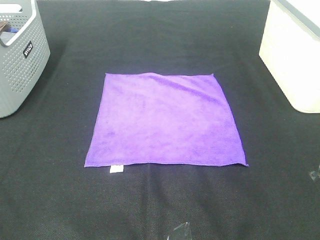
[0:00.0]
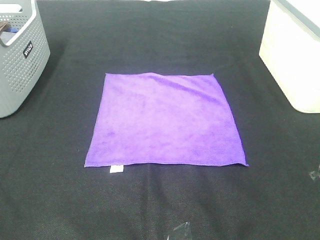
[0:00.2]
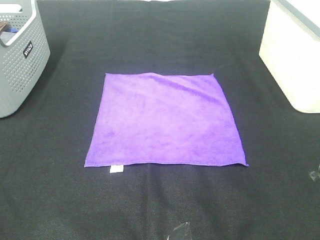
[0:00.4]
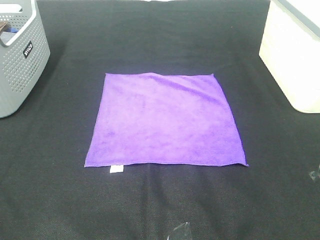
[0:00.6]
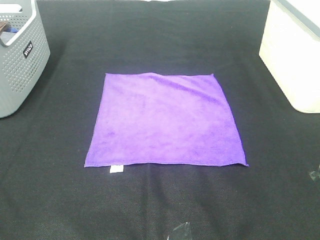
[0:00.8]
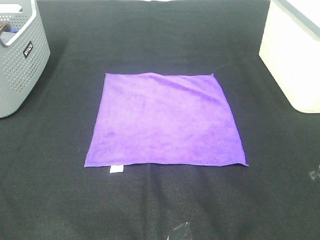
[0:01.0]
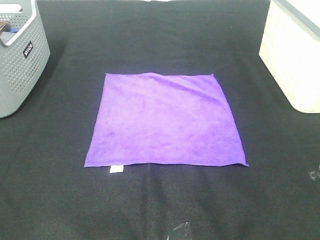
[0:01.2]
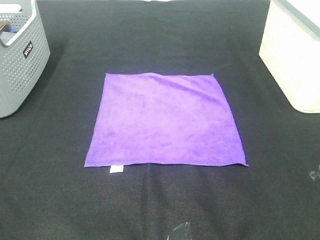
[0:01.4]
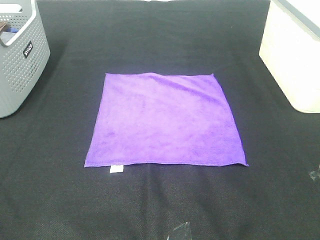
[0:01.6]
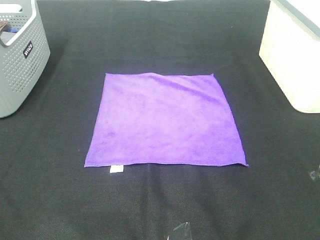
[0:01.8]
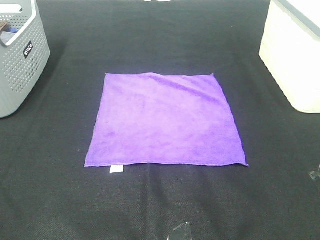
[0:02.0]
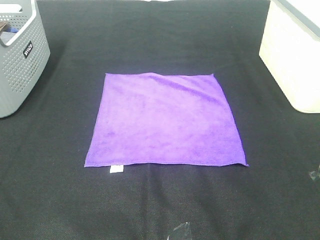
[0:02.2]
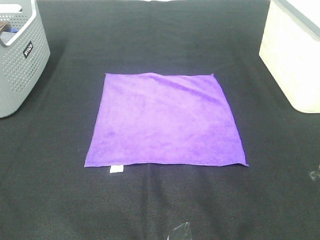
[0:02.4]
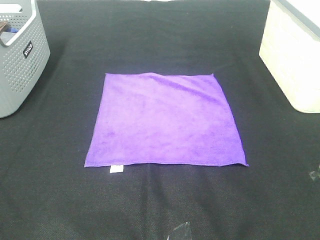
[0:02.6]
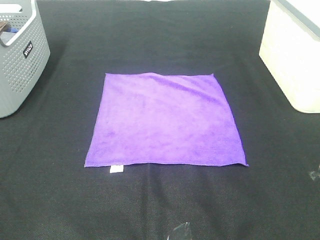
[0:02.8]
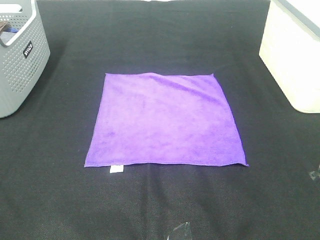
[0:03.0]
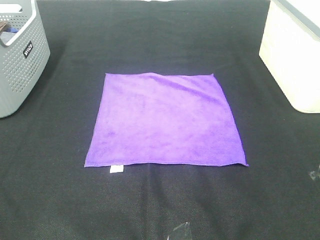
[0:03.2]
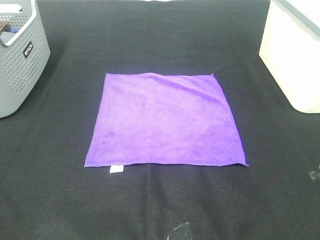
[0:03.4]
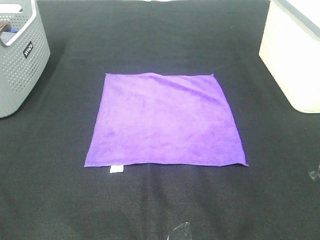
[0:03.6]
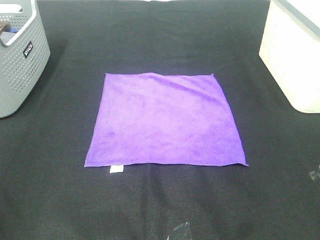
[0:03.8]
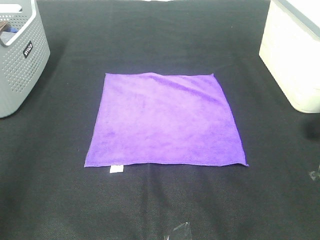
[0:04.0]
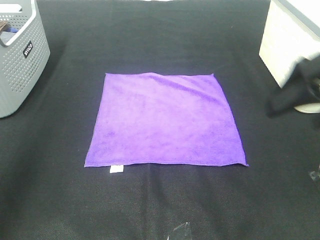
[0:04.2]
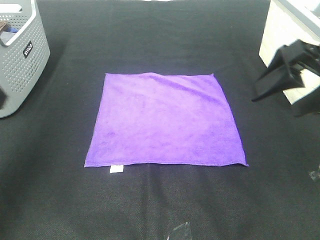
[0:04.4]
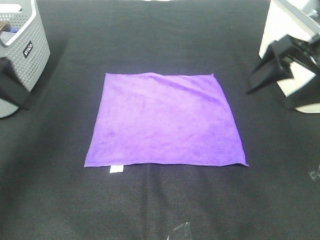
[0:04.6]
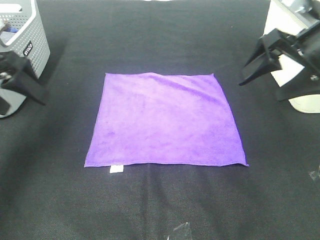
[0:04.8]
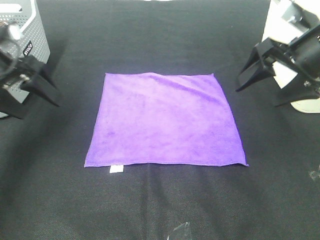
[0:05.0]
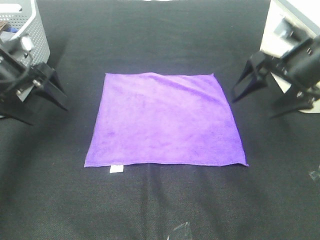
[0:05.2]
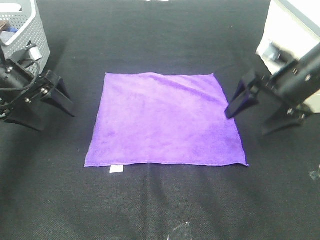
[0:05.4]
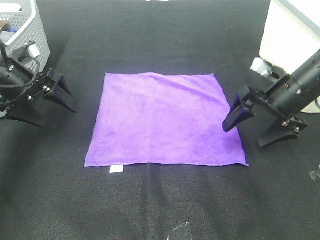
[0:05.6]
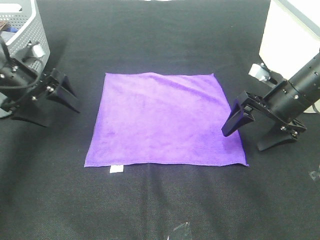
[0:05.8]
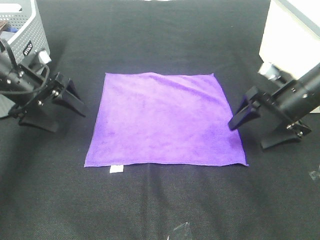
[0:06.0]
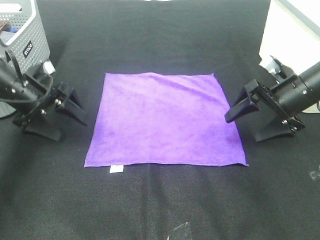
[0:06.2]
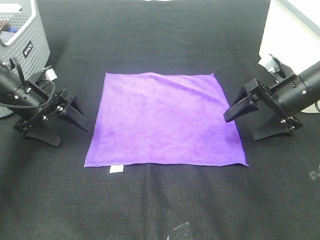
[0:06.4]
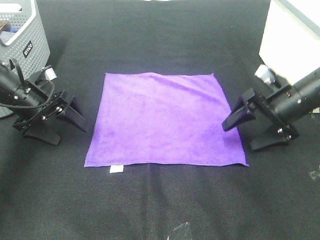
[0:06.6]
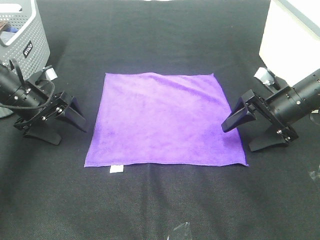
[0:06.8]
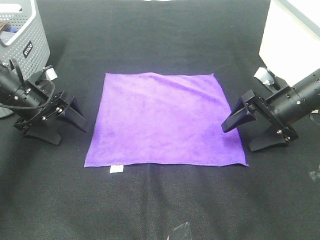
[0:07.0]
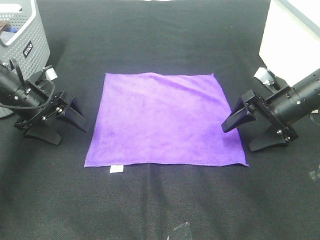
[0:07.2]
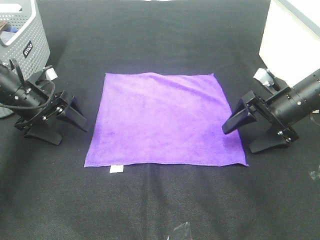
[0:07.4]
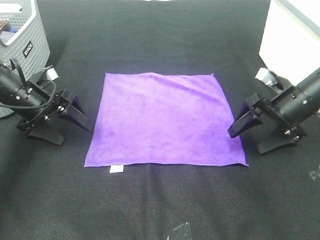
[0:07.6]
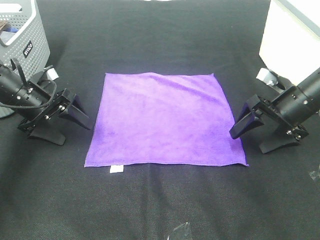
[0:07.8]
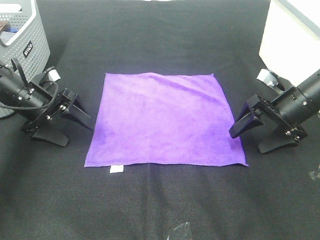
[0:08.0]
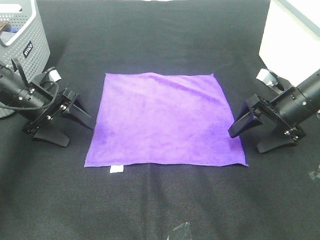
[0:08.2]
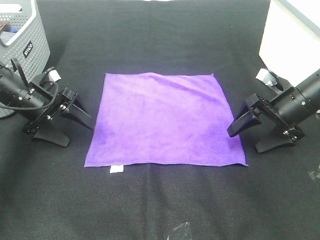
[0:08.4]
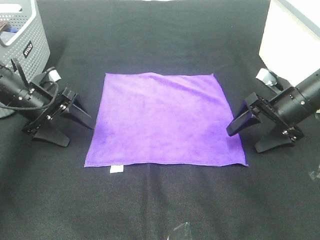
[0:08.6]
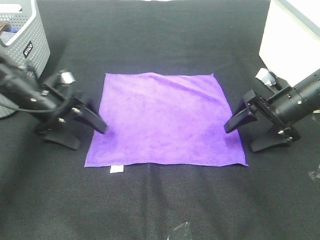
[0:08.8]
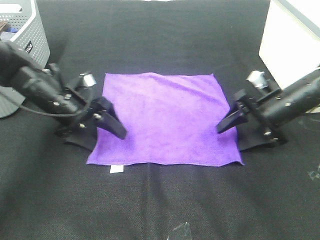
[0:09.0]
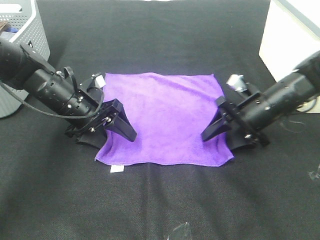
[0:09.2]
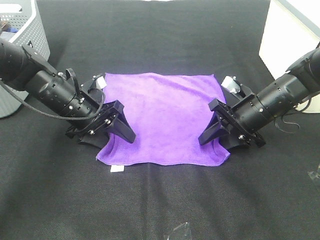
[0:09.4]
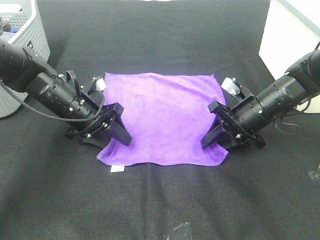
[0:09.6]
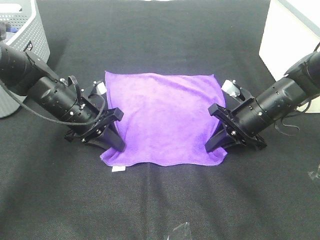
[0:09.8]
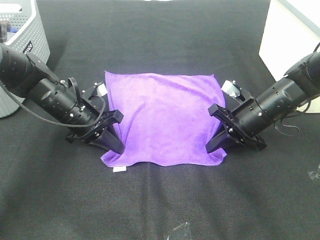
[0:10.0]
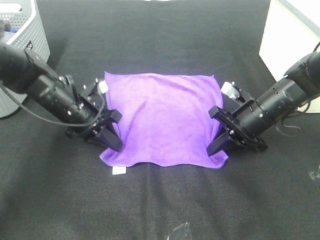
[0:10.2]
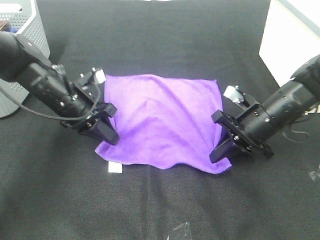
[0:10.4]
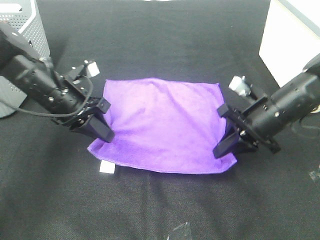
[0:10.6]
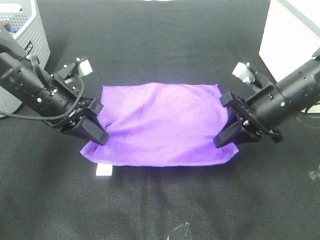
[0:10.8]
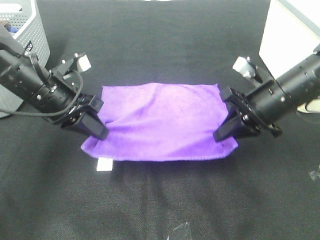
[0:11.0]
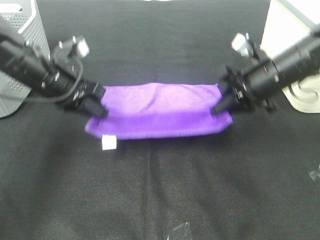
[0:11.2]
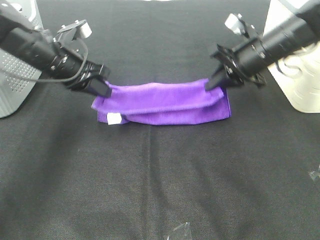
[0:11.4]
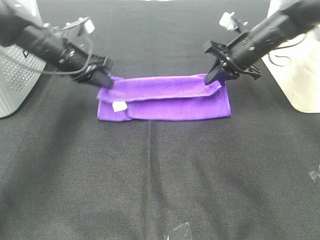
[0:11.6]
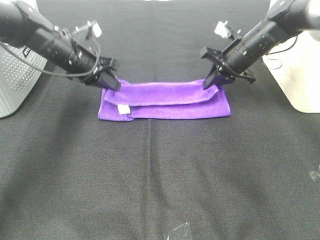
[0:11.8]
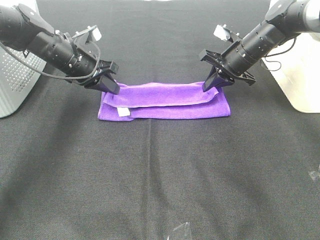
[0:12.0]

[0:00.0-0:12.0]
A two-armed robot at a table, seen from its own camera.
Task of the whole recording: Fold towels.
Step, 0:00.0 to 0:10.0: Left hand: grab the bottom left corner of purple towel.
Step, 0:00.0 to 0:10.0: Right hand: grab the bottom right corner of purple towel.
0:00.0 to 0:03.0: The two grippers keep their place.
0:03.0 to 0:04.4: Both grippers travel together forward, roughly 25 cm.
0:04.4 to 0:06.0: The grippers both shift downward and forward by approximately 20 cm.
0:06.0 to 0:07.6: The grippers make only small movements.
0:07.6 to 0:09.0: The left gripper is displaced to the right by about 10 cm.
0:09.0 to 0:10.4: The right gripper ends up approximately 5 cm from where it was, and closes its fingers, while the left gripper closes its fingers.
0:10.4 to 0:12.0: The left gripper goes some 10 cm forward, while the right gripper moves forward, some 15 cm.

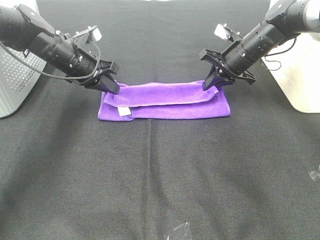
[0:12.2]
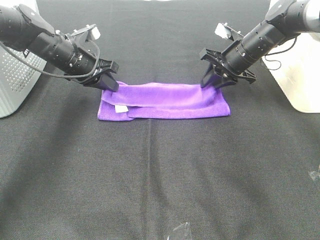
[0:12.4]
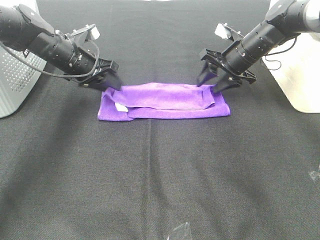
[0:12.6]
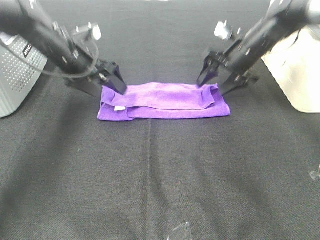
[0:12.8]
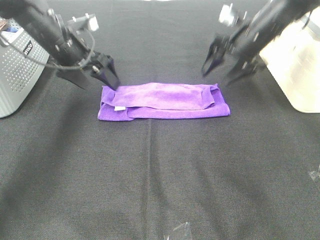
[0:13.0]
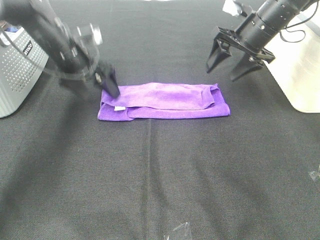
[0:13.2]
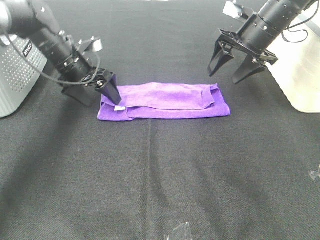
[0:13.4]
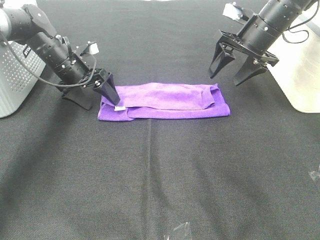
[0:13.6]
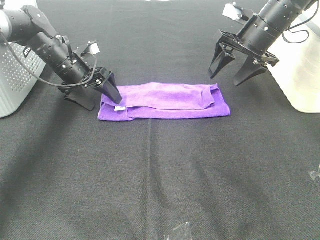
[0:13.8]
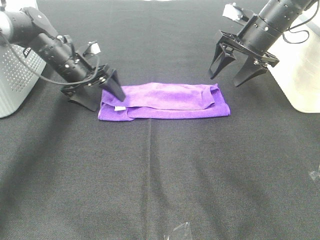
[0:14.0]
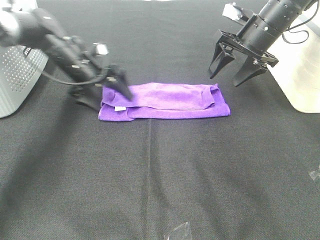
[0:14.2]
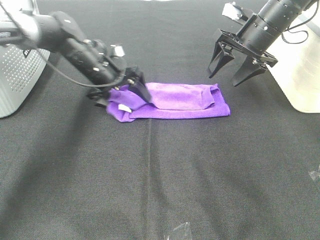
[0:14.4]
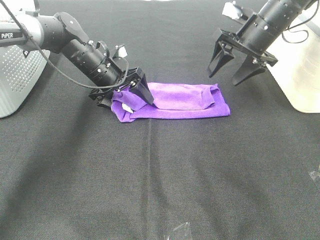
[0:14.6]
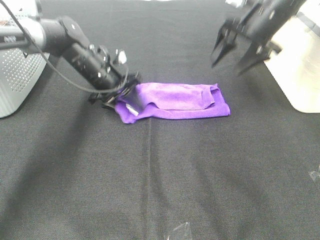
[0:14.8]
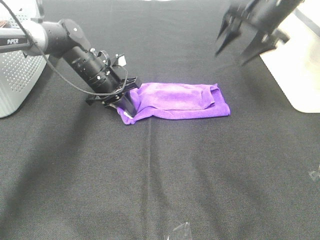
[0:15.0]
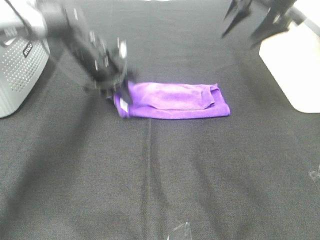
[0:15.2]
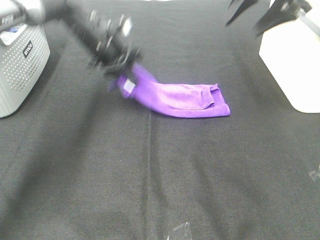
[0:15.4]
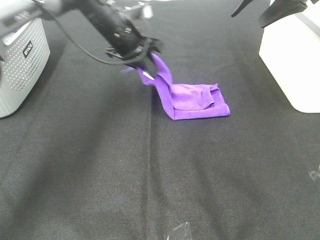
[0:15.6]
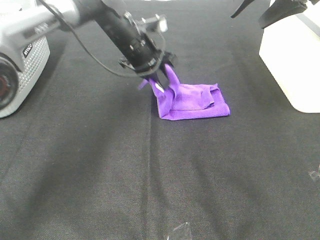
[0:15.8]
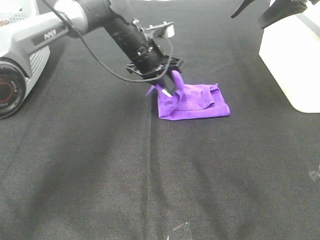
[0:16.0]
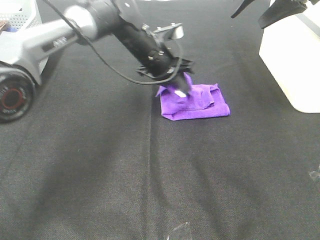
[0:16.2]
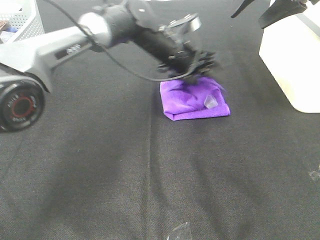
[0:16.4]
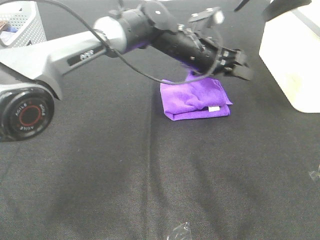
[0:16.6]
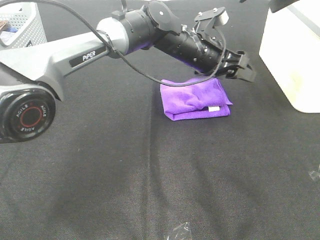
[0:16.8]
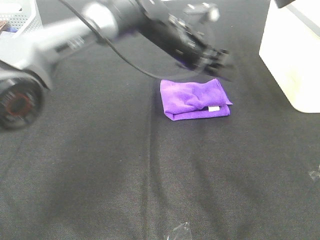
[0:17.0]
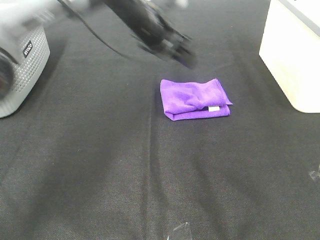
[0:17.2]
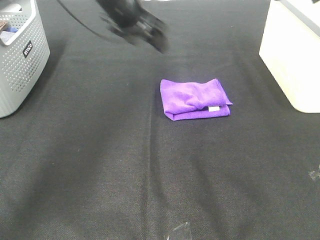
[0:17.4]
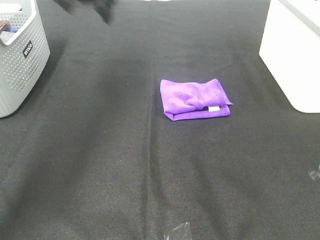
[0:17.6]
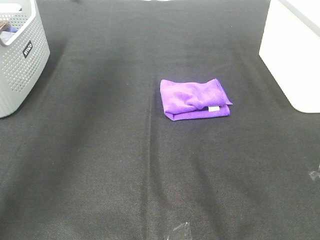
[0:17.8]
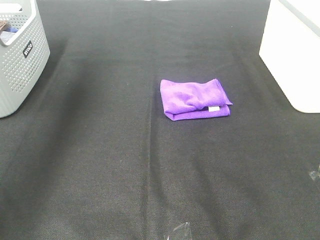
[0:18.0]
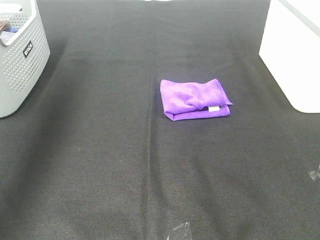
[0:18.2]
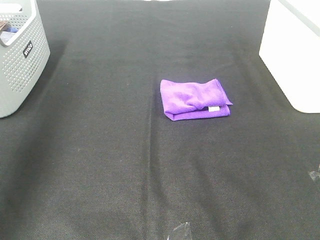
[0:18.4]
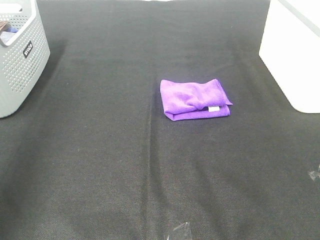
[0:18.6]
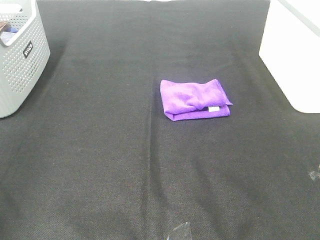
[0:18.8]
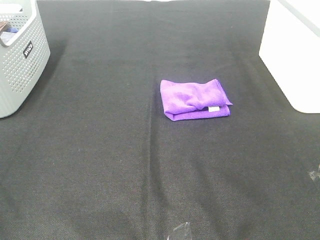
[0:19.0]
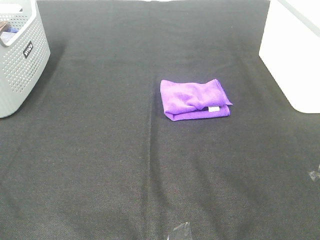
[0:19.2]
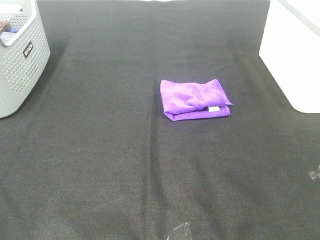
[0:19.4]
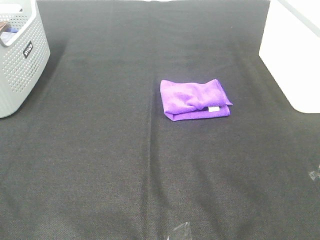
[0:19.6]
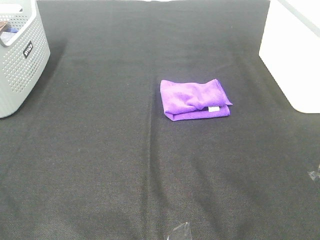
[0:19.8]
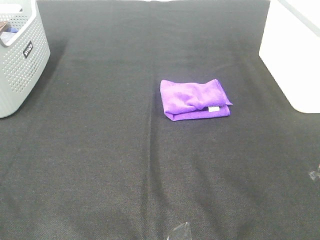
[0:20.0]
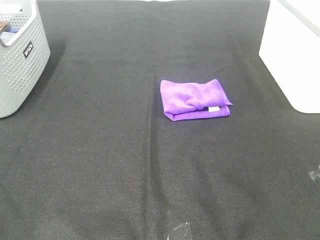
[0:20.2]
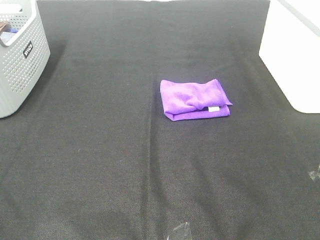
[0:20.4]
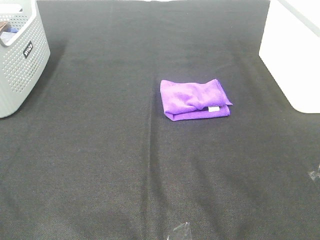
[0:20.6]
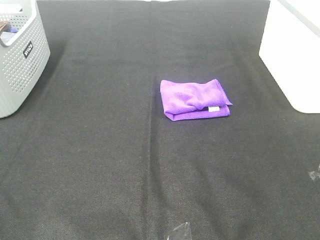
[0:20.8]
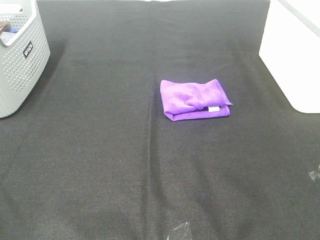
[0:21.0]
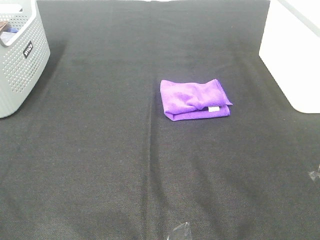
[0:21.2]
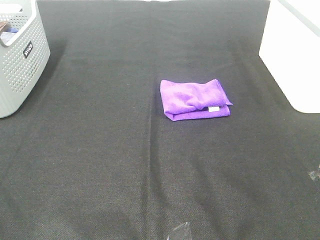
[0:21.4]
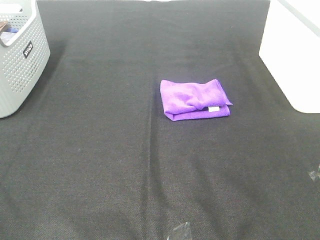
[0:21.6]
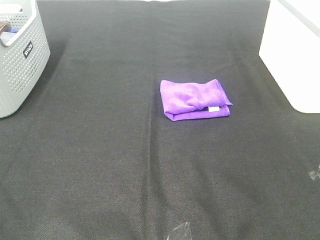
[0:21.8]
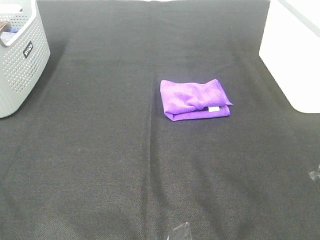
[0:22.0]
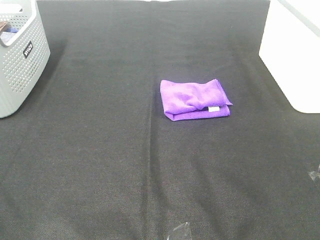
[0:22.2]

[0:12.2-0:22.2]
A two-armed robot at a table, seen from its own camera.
Task of the whole recording: Fold towels.
Step, 0:12.2 to 0:16.2: Left hand: fold the purple towel from left to right.
0:12.2 to 0:13.6: The right gripper goes approximately 5 cm upward, and opens. Meanwhile the left gripper opens up.
0:13.6 to 0:15.0: The right gripper goes approximately 10 cm upward. The left gripper goes some 5 cm to the right, and closes.
0:15.0 to 0:16.4: The right gripper moves upward, some 5 cm. The left gripper moves to the right, approximately 15 cm, and opens.
0:16.4 to 0:18.0: The right gripper is displaced backward by approximately 25 cm. The left gripper moves to the left and upward, approximately 40 cm.
0:18.0 to 0:19.4: The left gripper travels backward by approximately 40 cm.
0:20.8 to 0:22.2: Neither gripper changes place.
